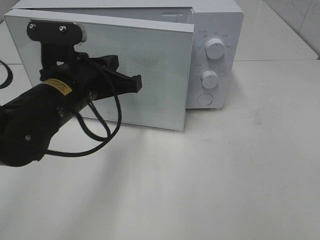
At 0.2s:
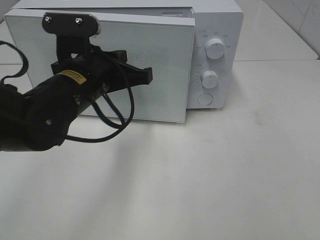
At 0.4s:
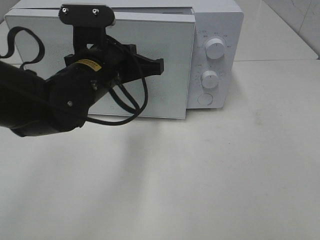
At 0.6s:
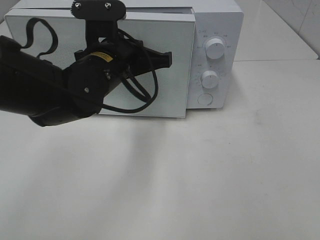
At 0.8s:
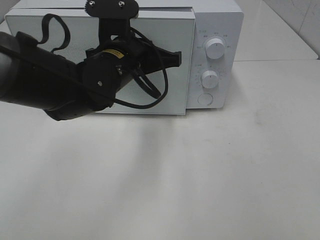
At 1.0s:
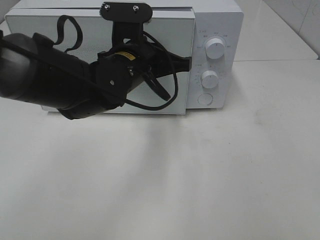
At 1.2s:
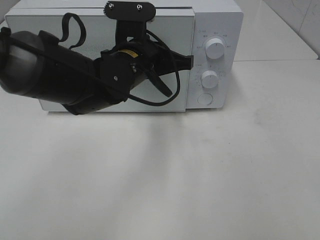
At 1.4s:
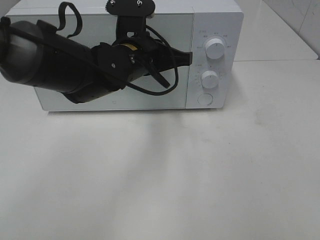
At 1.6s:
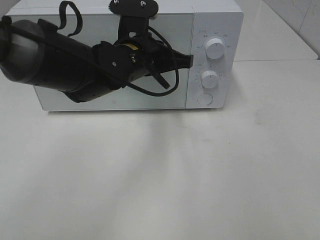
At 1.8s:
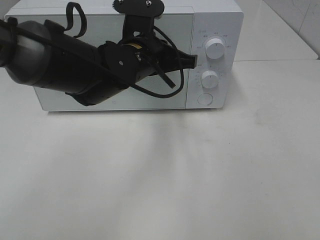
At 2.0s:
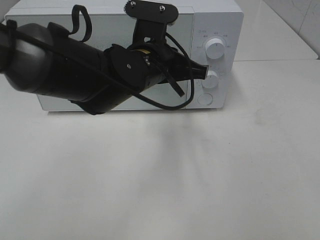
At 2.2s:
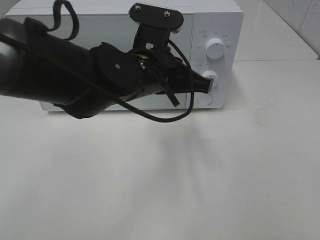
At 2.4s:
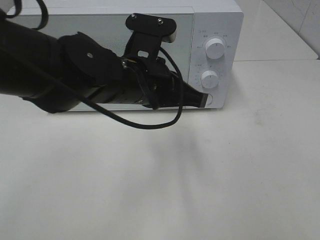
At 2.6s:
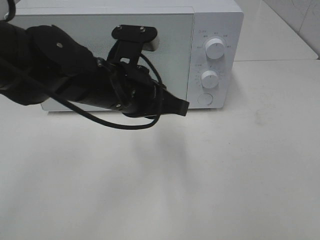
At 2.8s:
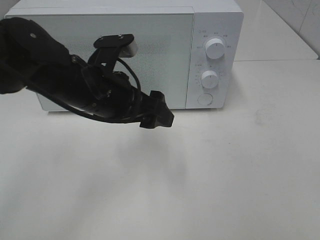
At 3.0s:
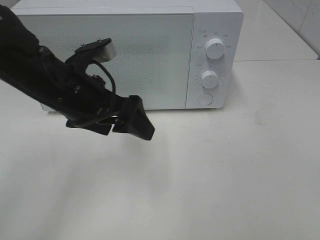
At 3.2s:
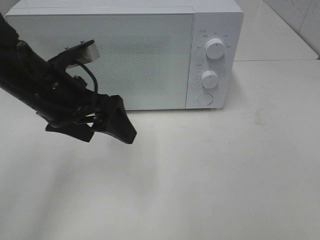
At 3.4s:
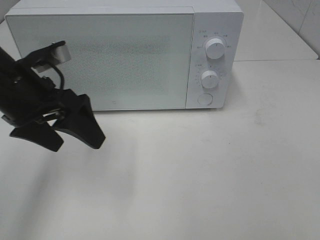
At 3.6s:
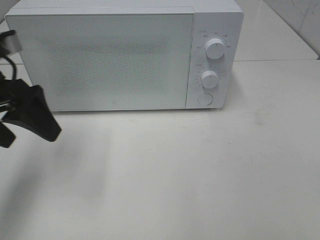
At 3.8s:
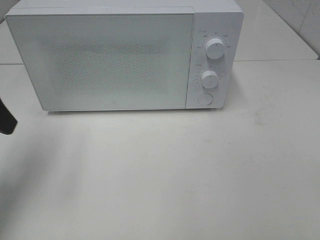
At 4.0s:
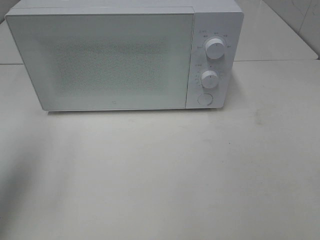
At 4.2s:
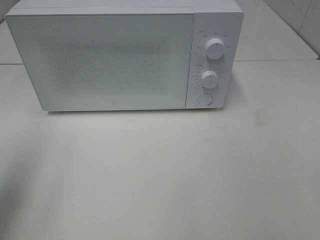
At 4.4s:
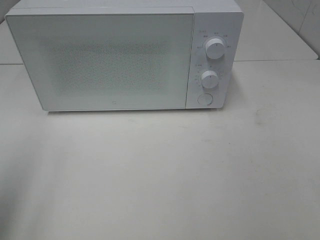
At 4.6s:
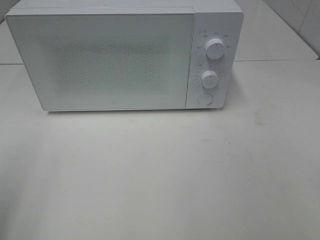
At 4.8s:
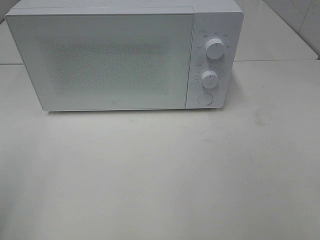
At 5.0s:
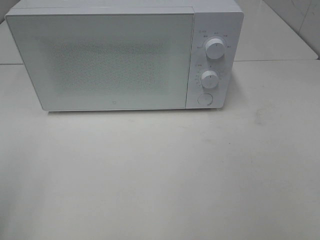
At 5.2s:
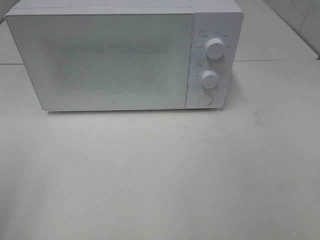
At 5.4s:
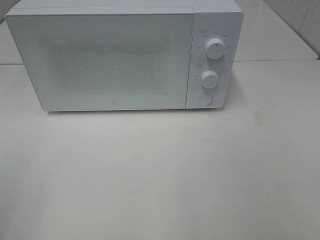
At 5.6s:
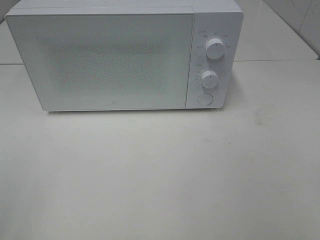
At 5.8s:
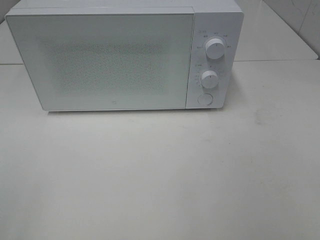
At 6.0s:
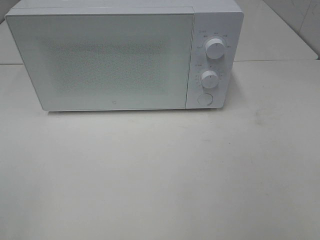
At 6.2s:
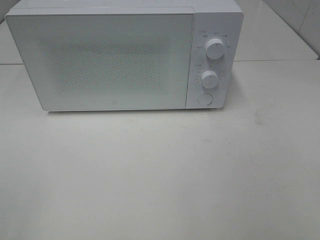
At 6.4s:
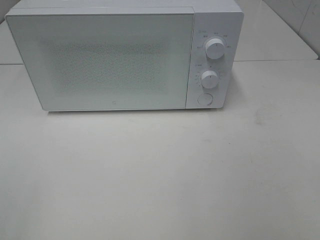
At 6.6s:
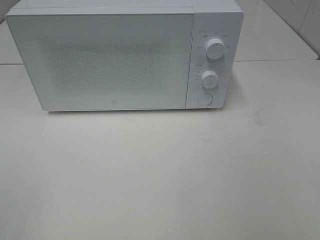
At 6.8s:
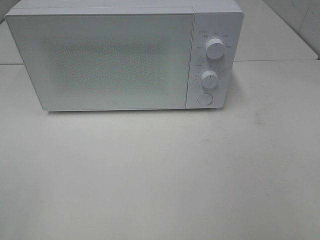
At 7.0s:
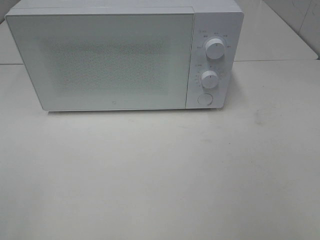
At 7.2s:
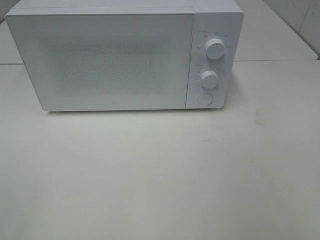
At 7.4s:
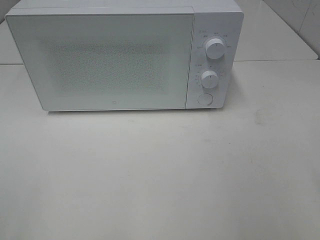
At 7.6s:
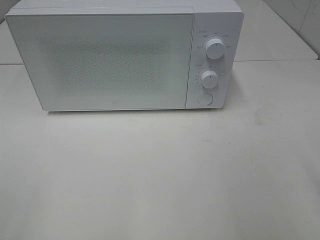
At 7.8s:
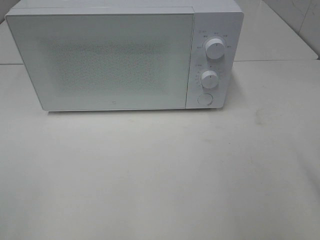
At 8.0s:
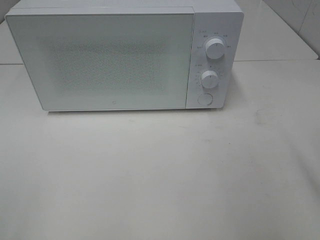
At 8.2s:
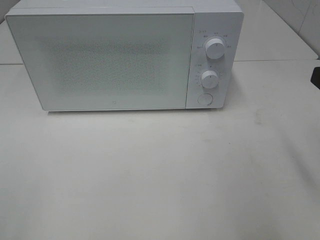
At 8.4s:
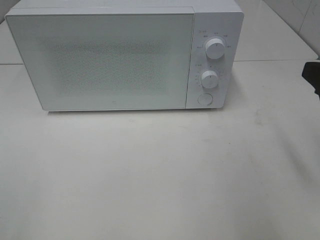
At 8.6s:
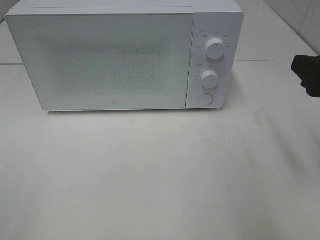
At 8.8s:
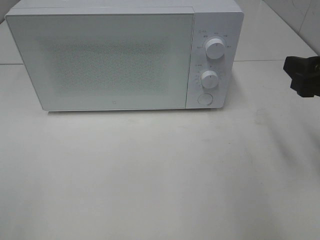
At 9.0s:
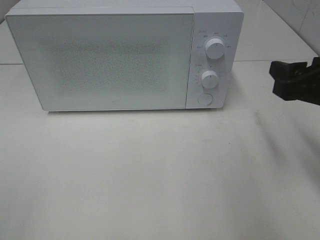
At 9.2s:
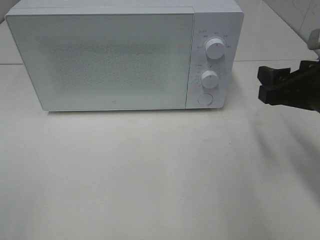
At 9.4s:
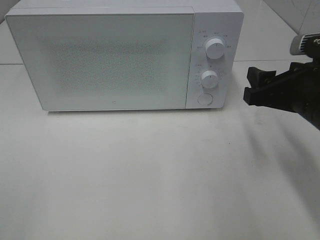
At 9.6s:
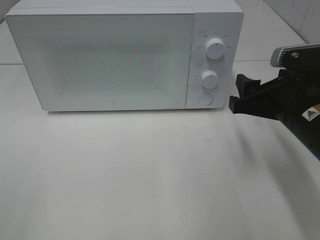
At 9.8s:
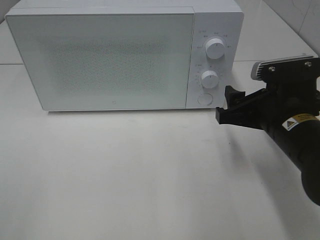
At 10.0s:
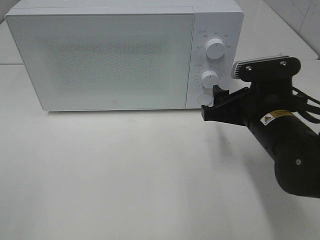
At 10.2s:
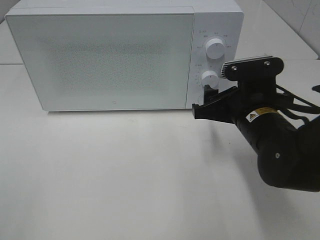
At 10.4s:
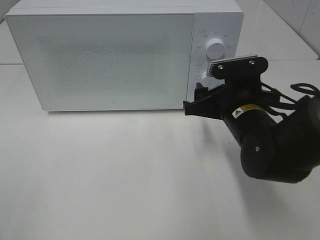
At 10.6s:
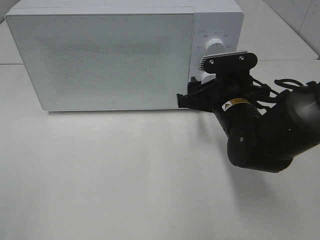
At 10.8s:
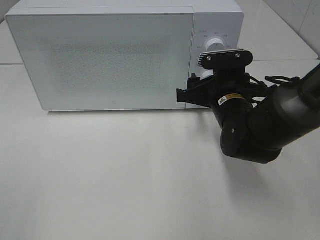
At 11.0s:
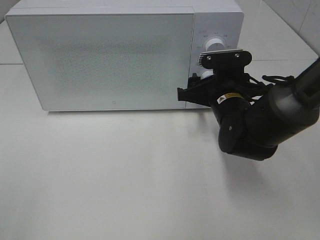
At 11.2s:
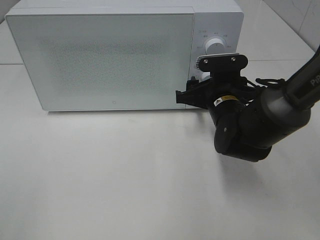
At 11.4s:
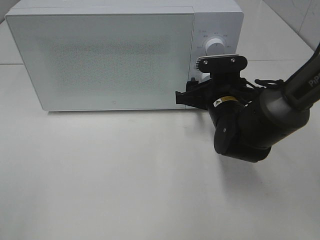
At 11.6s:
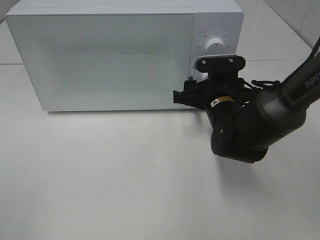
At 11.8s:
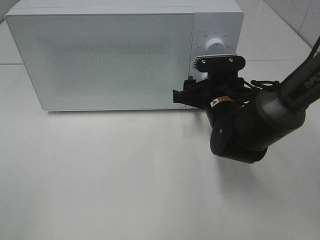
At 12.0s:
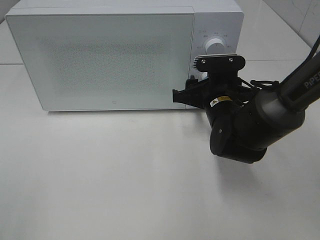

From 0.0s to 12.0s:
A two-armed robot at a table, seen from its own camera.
Task of the whole recording: Heat the burger.
Step, from 0.0s to 2.0s: Left hand: close the microwave door.
From 0.0s to 1.6s: The left gripper heads to the right and forward, covering roughly 10 cm.
From 1.6s to 3.0s: The left gripper travels to the left and backward by some 10 cm, and opens up.
From 3.0s to 4.4s: The left gripper shifts roughly 25 cm to the left, backward and upward.
From 4.4s to 6.0s: The left gripper heads backward, covering roughly 10 cm.
From 7.6s to 9.0s: The right gripper goes approximately 15 cm forward and downward.
From 9.0s to 10.4s: The right gripper travels to the left, downward and forward by approximately 15 cm.
From 10.4s to 12.0s: The right gripper goes some 5 cm forward.

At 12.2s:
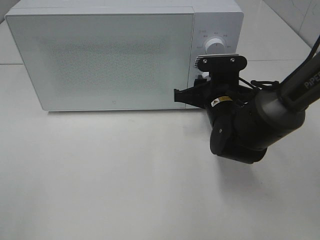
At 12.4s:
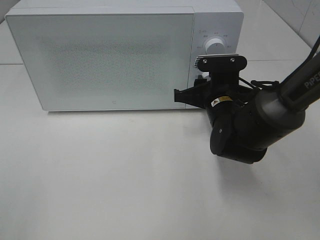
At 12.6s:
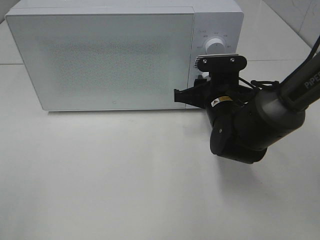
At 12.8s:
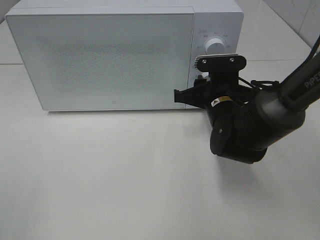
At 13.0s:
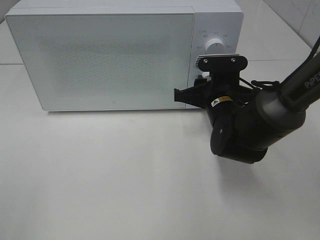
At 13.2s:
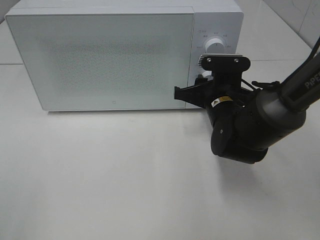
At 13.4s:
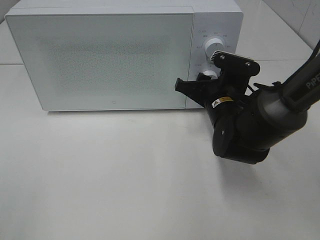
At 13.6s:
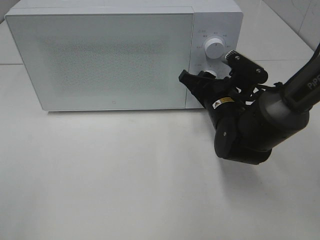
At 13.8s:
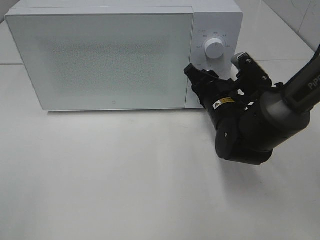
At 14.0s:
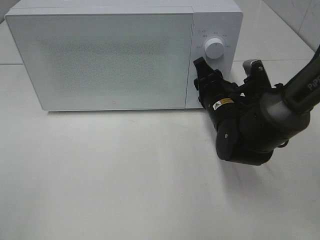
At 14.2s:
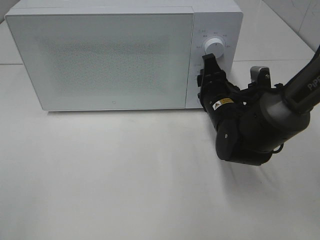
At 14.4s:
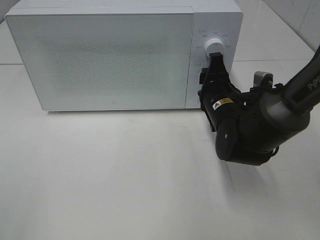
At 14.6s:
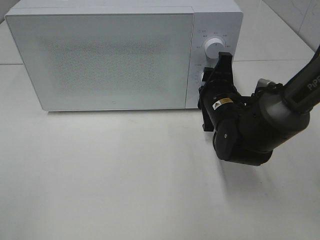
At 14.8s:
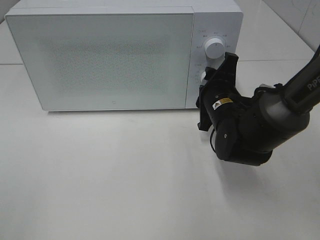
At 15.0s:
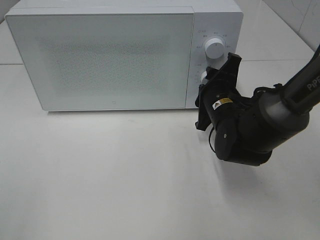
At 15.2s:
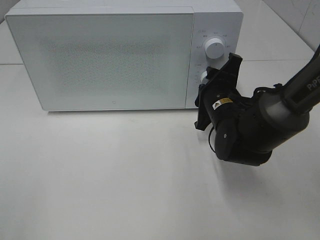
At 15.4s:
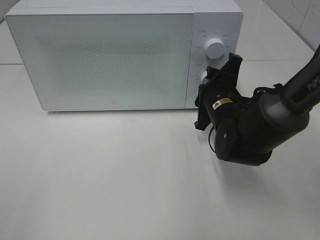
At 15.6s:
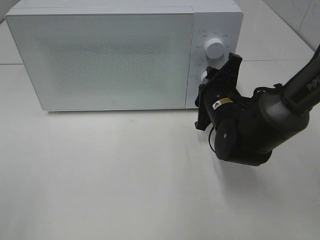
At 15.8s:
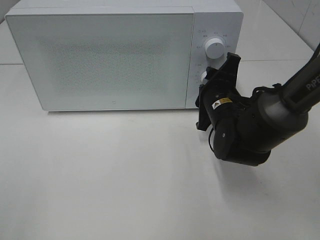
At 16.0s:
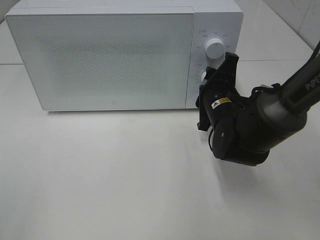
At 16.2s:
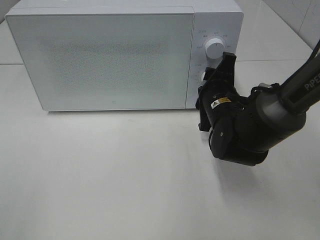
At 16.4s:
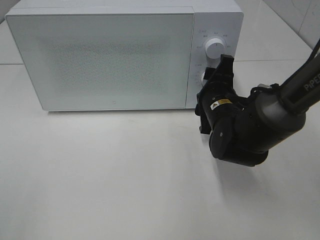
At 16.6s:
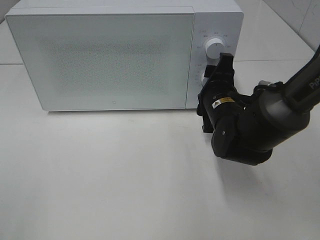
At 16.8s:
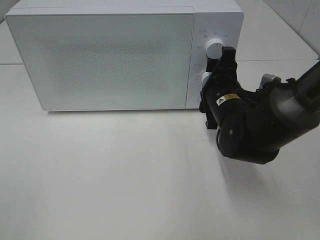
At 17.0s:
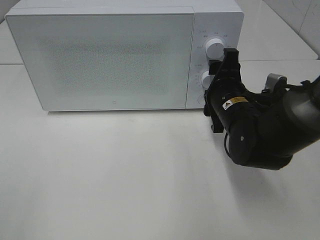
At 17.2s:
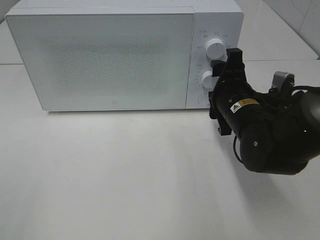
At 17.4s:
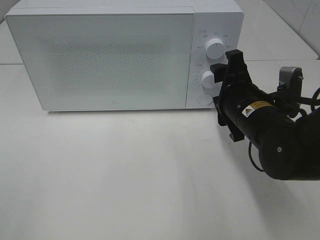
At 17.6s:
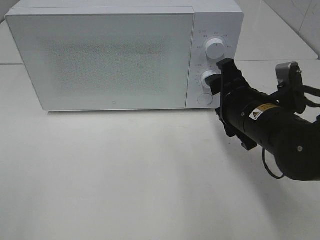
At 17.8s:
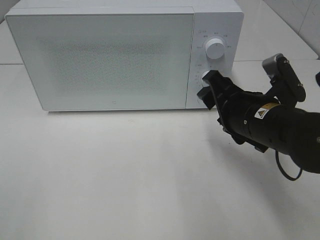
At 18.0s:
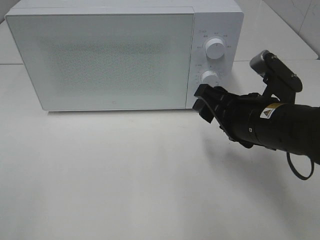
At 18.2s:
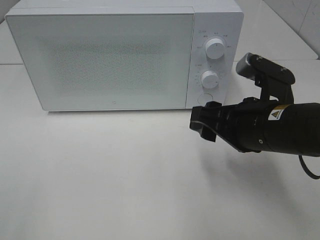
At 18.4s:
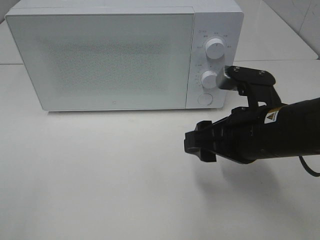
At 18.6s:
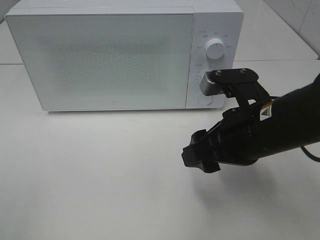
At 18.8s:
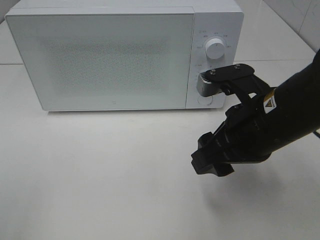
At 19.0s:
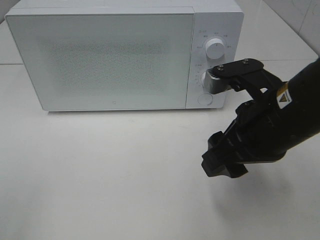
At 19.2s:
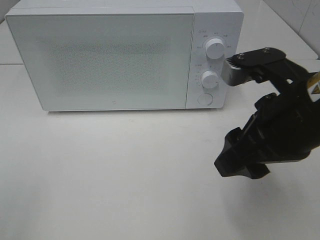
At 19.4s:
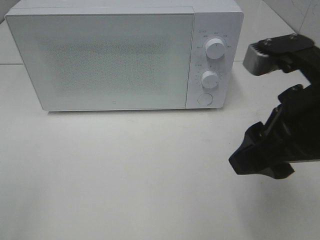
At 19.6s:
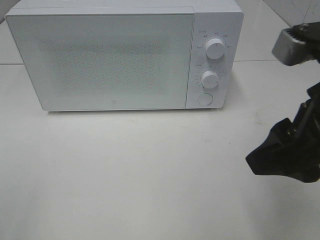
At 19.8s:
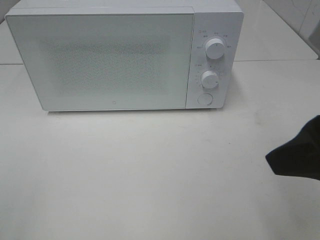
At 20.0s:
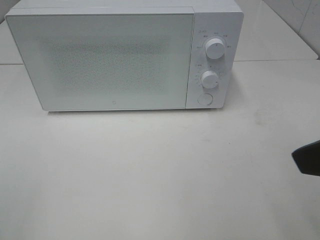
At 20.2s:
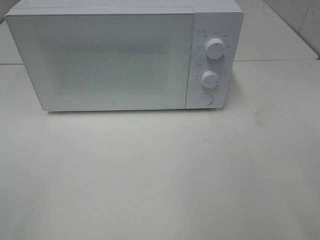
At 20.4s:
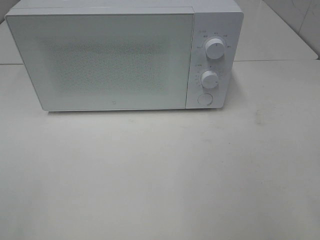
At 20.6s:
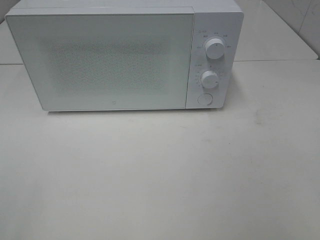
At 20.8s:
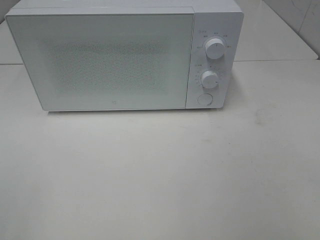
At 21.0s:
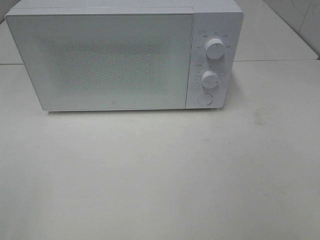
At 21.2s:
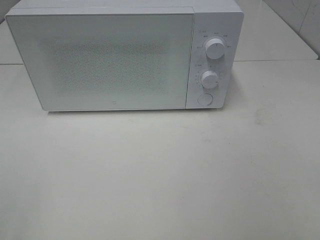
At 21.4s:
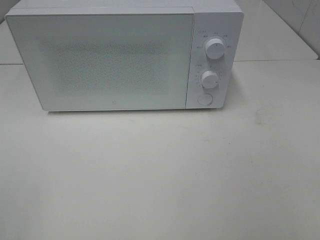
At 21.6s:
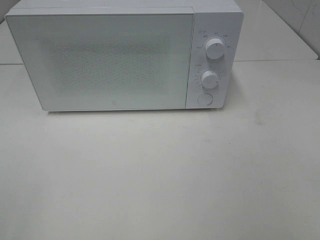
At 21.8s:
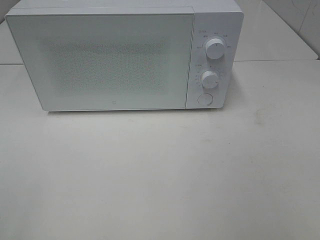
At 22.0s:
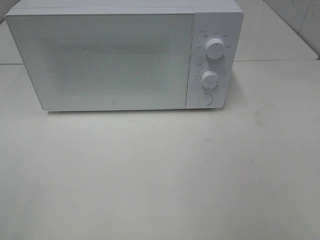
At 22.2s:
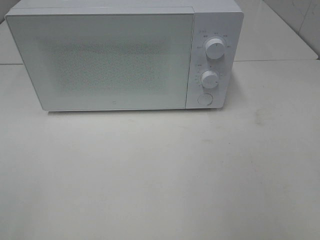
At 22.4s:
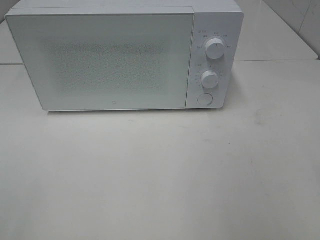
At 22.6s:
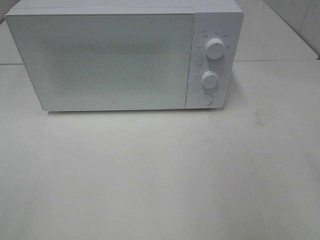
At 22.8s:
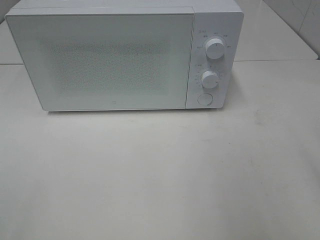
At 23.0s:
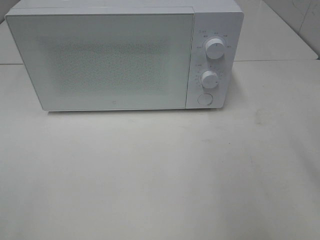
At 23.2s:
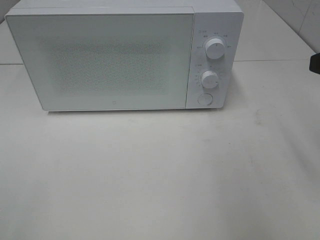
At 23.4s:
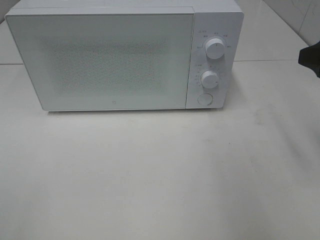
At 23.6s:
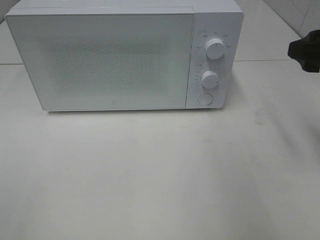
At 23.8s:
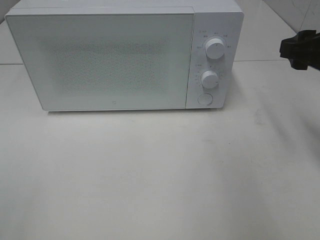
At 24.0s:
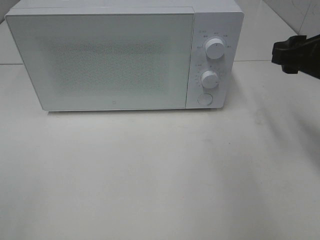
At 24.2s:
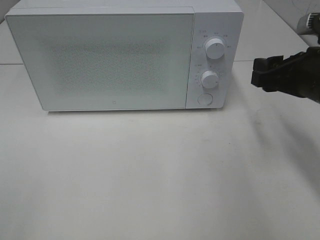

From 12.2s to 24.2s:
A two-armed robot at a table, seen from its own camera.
Task of the whole recording: Heat the burger.
Step, from 12.2s to 16.6s: Right hand: twist timer button.
From 15.2s to 16.6s: The grippers stay close to where they were, moving slightly.
From 16.6s to 18.2s: The right gripper heads backward and upward, covering approximately 10 cm.
From 18.2s to 19.8s: The right gripper shifts about 15 cm upward and backward.
From 19.8s to 21.2s: The right gripper is displaced backward and to the right by approximately 15 cm.
From 22.6s to 24.2s: The right gripper heads forward and downward, covering roughly 20 cm.
